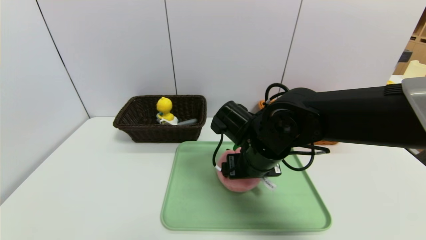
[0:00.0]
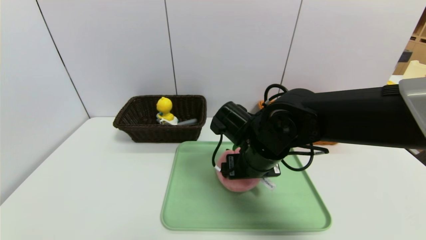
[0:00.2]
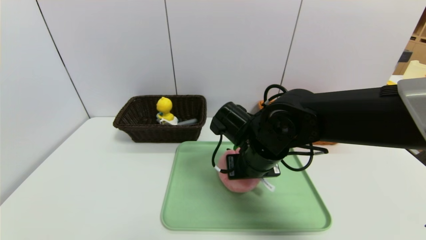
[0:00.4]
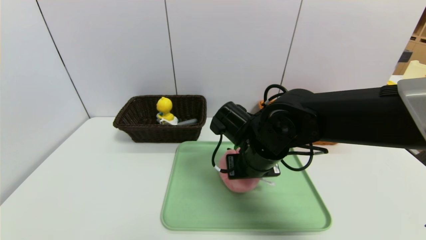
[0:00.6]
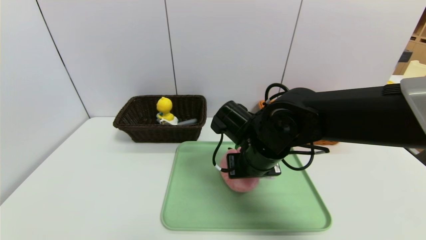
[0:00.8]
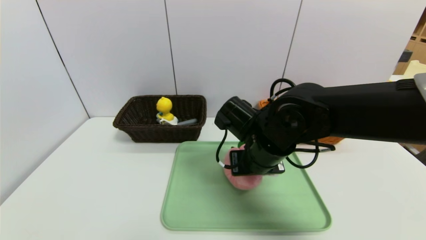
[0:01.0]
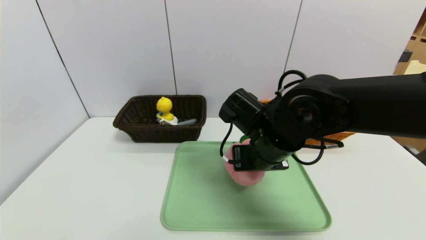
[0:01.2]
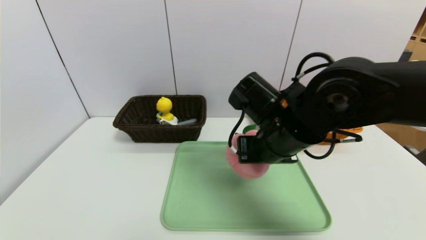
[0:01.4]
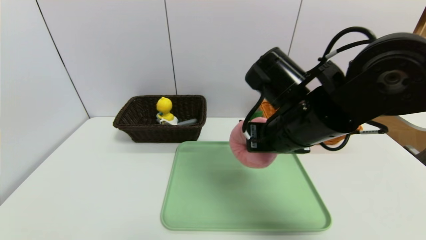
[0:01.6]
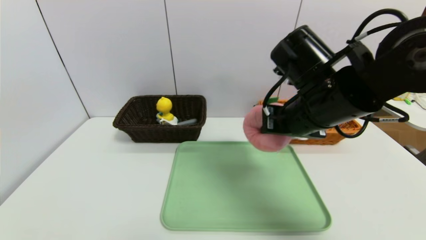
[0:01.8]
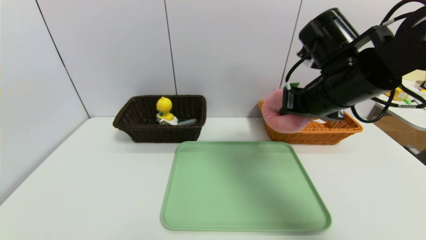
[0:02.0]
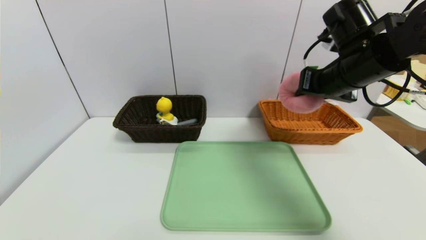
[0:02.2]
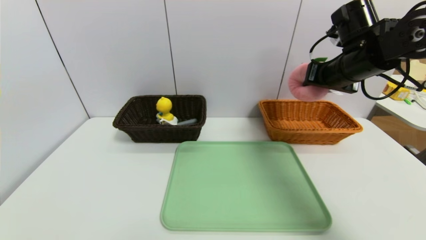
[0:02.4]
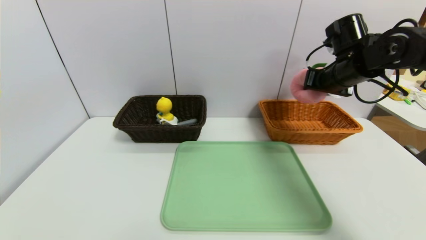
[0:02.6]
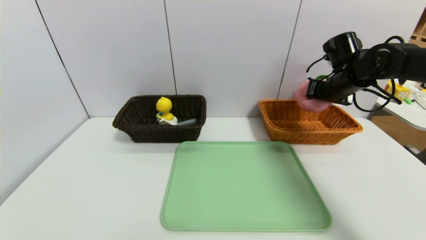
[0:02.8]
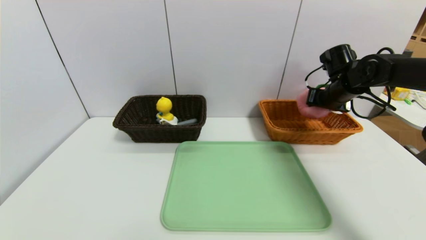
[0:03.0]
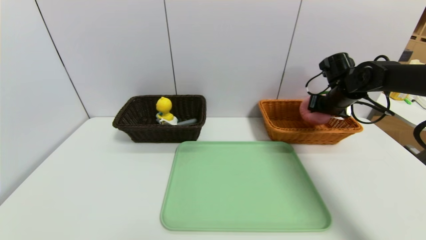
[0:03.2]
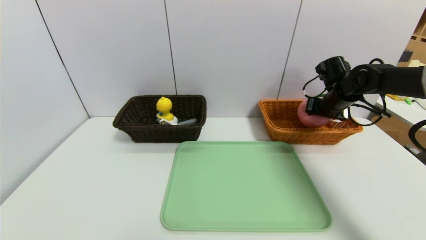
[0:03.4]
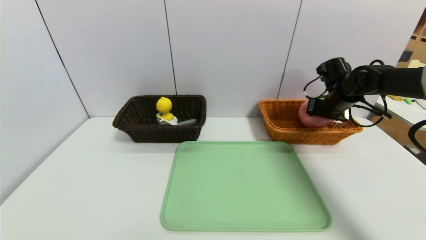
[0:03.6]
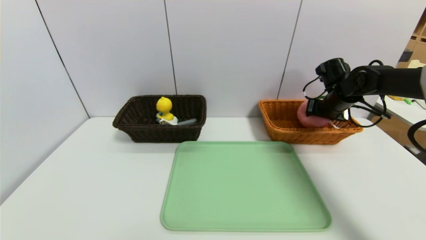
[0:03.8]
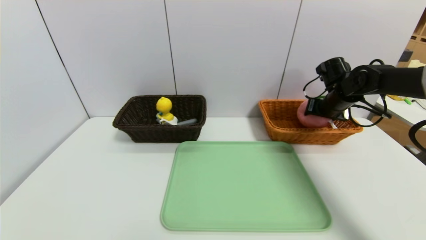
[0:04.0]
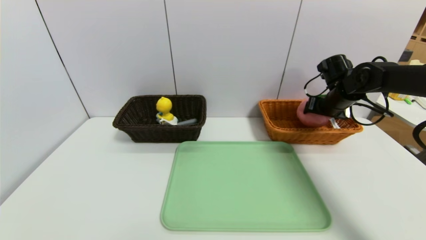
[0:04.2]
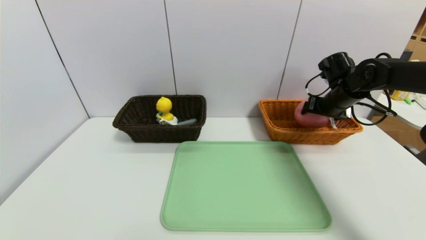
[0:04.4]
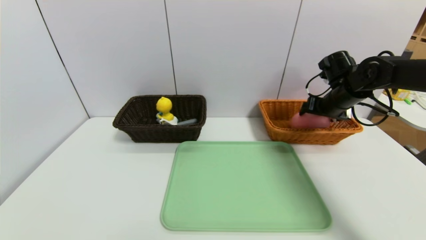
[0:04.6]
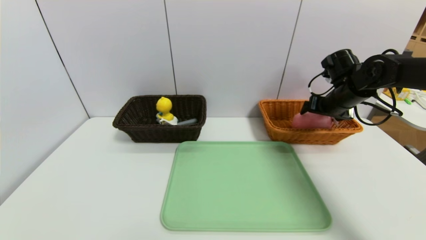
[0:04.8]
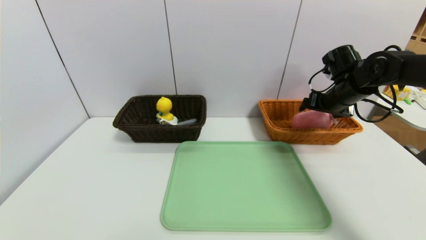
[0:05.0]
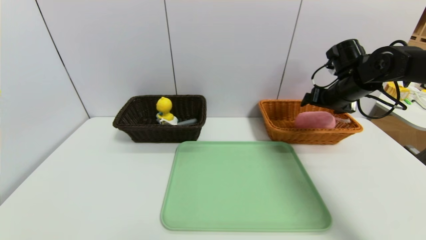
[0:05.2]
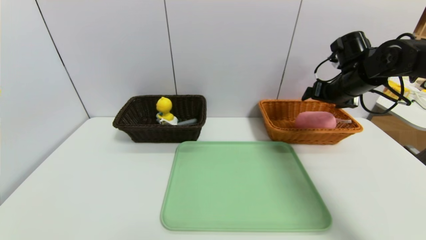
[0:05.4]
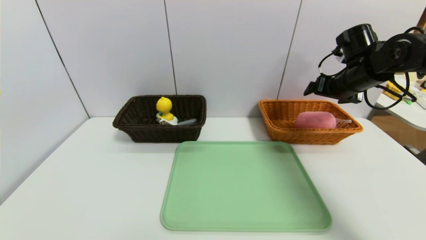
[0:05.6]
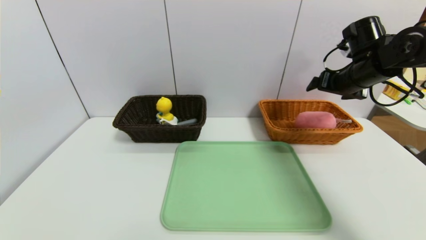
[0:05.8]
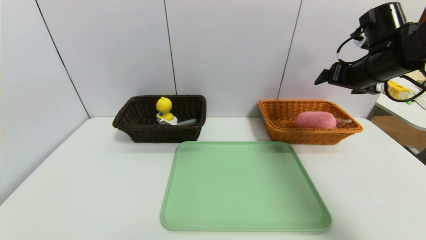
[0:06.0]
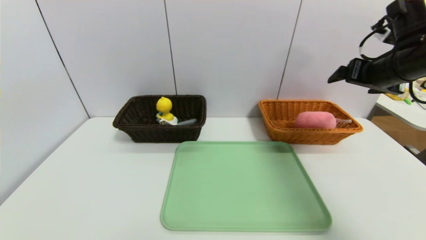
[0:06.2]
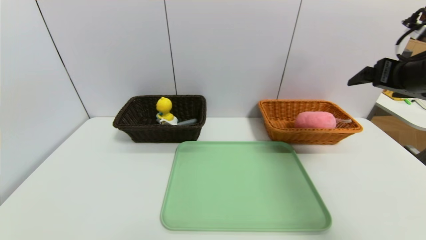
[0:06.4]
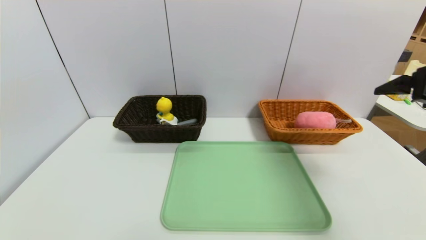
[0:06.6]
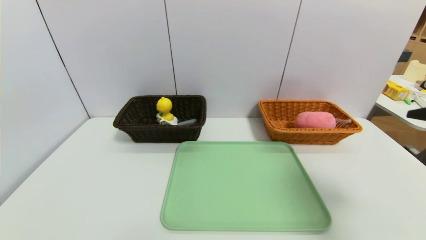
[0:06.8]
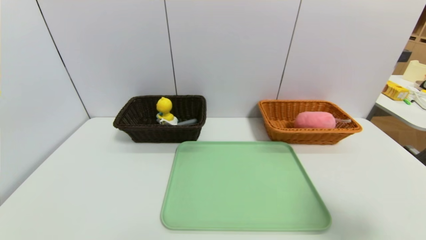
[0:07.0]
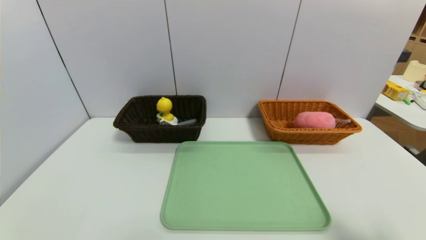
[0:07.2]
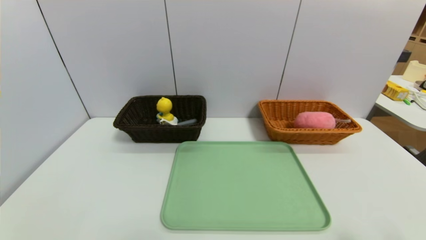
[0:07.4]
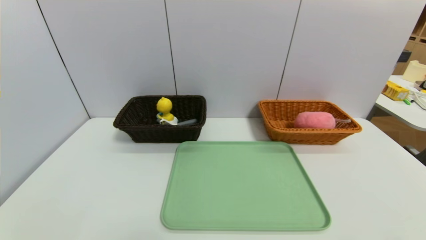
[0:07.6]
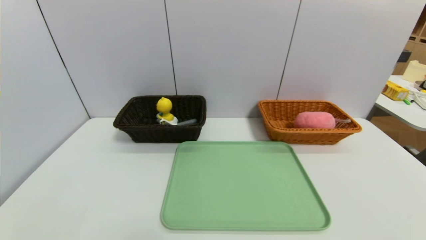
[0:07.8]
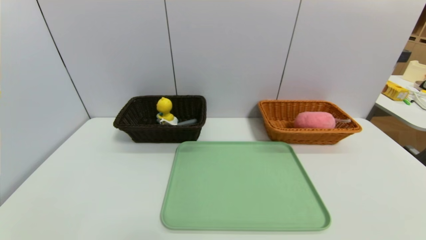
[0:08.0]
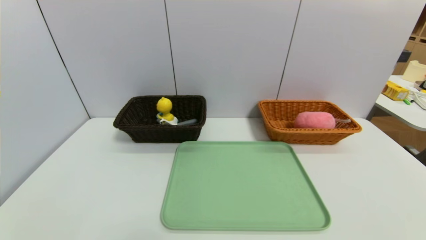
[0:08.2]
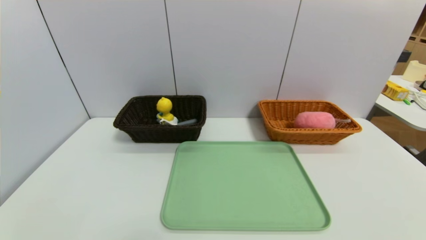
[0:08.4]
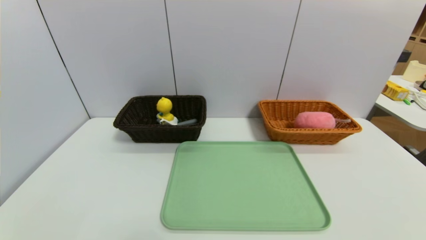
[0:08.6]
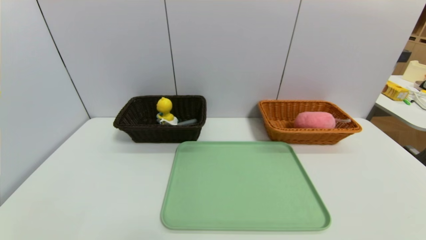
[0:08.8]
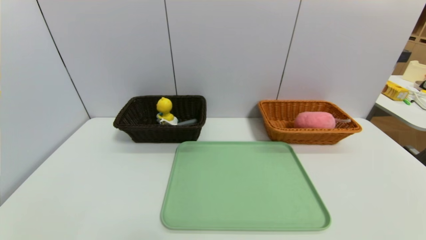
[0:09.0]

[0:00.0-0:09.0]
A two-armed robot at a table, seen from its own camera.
Task of the whole recording: place the food in the right basket with the right gripper, and place the non food items in the left basket with the left gripper.
Step, 0:00.0 to 0:05.0: Grasp the peach doll and put it in the right basket.
0:00.0 to 0:01.6: The right gripper shifts roughly 10 cm upward, and closes its fingers.
0:01.6 to 0:03.0: The right gripper moves to the right and forward, roughly 25 cm.
0:03.0 to 0:04.4: The right gripper opens its fingers.
0:04.4 to 0:06.0: The right gripper goes some 10 cm upward and backward.
0:06.0 to 0:07.6: The right gripper goes approximately 40 cm backward and downward.
